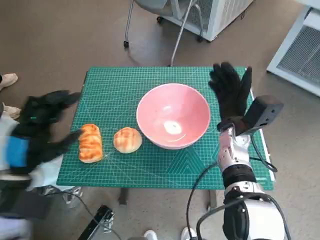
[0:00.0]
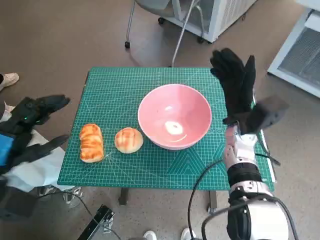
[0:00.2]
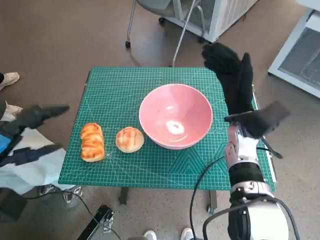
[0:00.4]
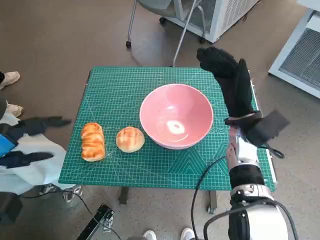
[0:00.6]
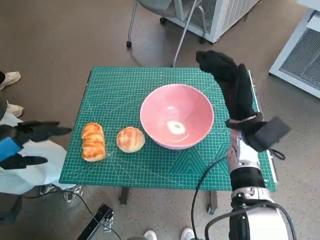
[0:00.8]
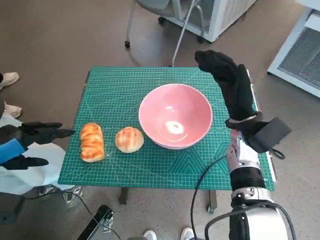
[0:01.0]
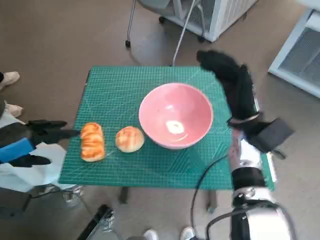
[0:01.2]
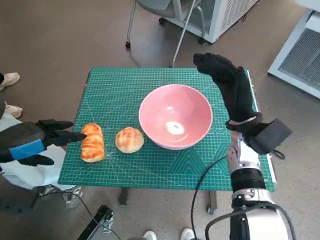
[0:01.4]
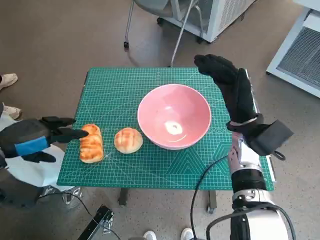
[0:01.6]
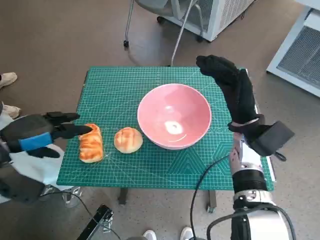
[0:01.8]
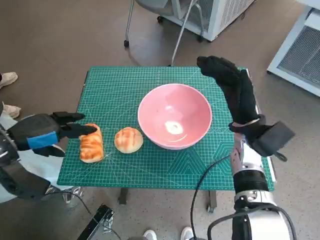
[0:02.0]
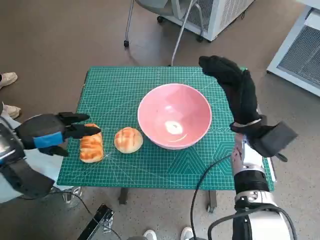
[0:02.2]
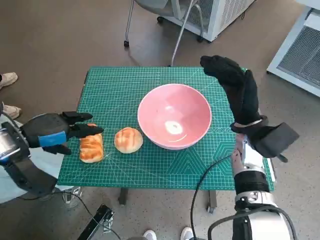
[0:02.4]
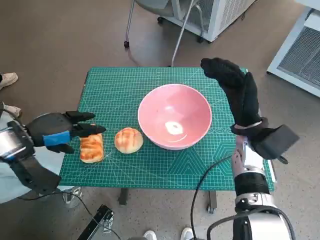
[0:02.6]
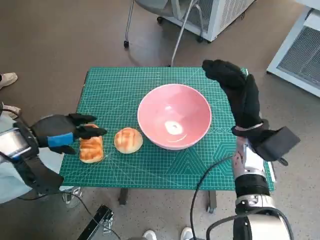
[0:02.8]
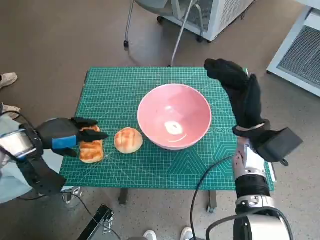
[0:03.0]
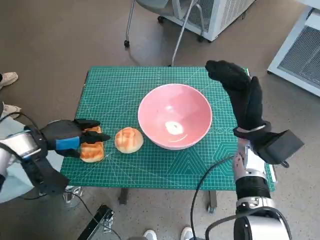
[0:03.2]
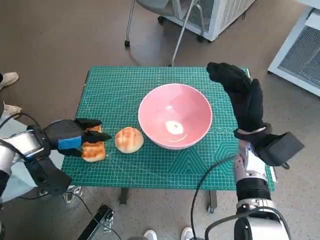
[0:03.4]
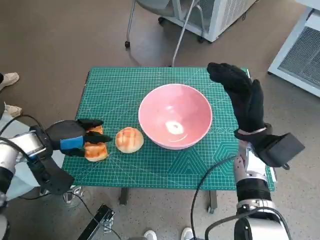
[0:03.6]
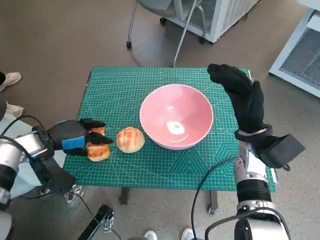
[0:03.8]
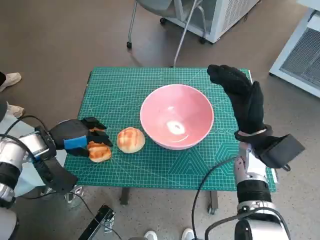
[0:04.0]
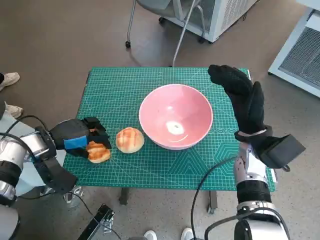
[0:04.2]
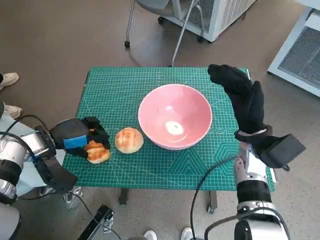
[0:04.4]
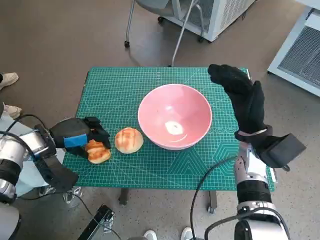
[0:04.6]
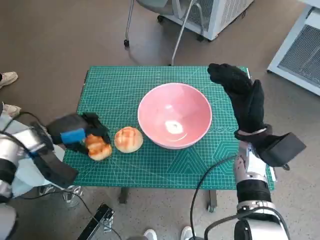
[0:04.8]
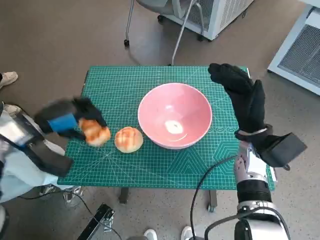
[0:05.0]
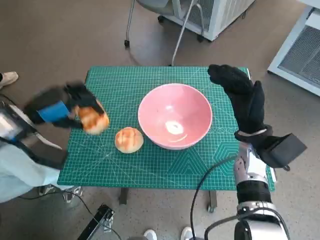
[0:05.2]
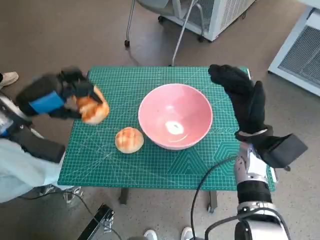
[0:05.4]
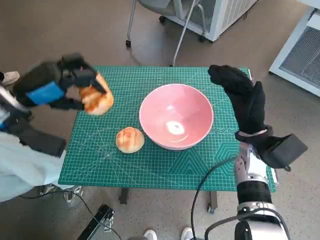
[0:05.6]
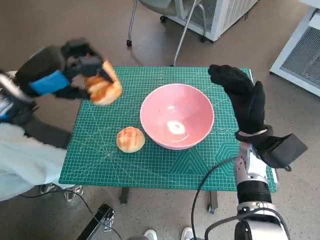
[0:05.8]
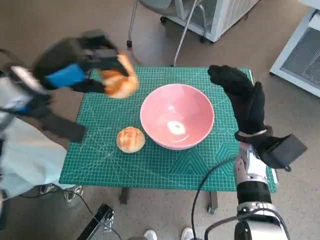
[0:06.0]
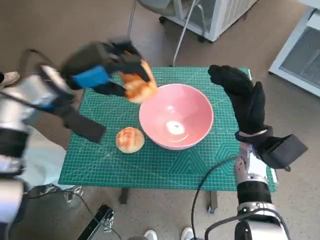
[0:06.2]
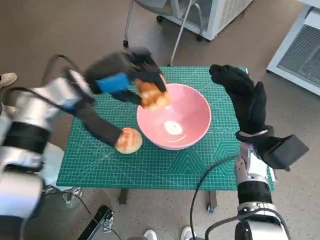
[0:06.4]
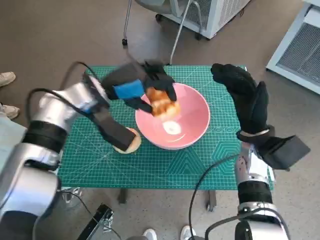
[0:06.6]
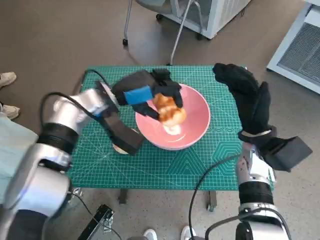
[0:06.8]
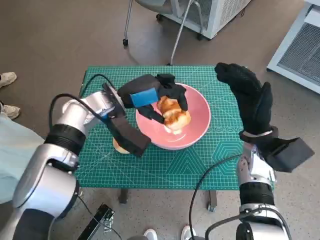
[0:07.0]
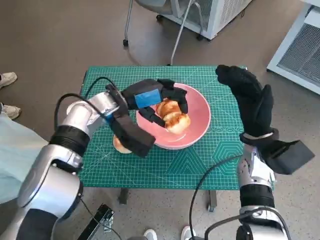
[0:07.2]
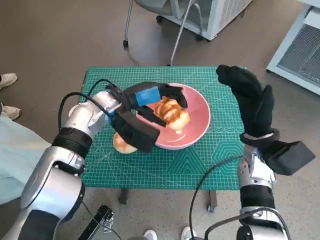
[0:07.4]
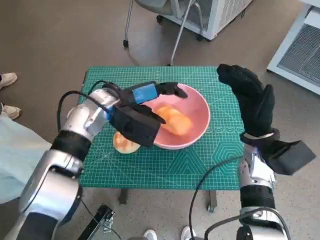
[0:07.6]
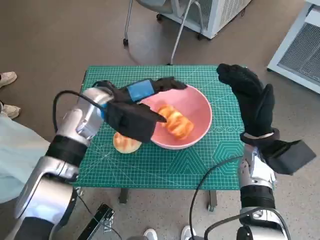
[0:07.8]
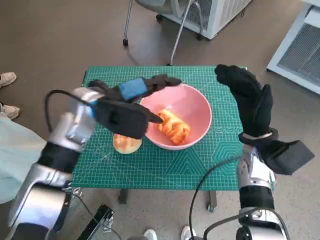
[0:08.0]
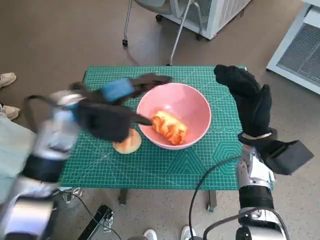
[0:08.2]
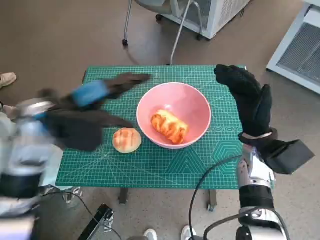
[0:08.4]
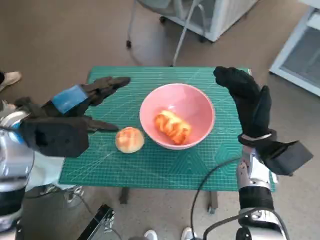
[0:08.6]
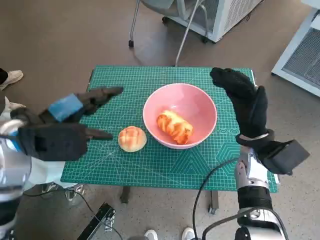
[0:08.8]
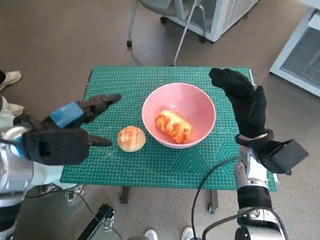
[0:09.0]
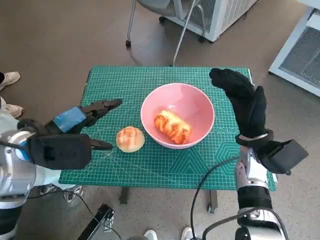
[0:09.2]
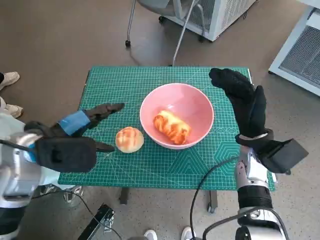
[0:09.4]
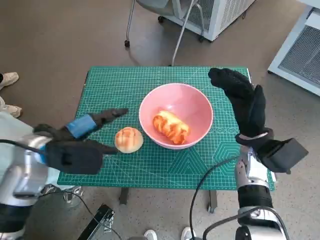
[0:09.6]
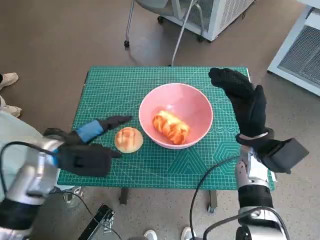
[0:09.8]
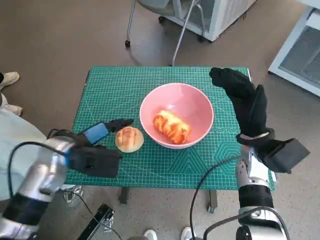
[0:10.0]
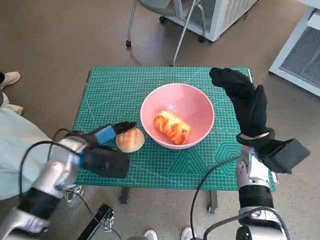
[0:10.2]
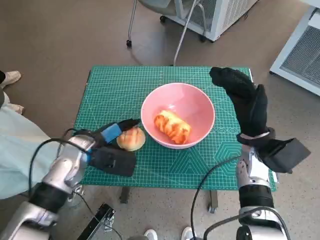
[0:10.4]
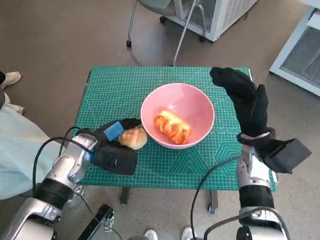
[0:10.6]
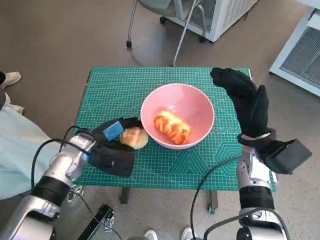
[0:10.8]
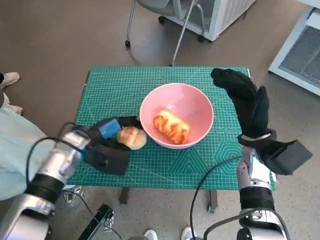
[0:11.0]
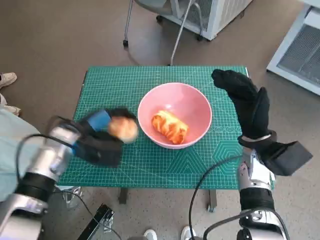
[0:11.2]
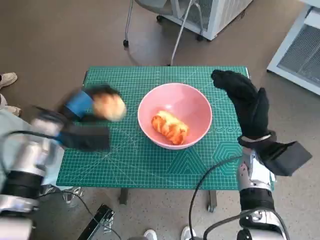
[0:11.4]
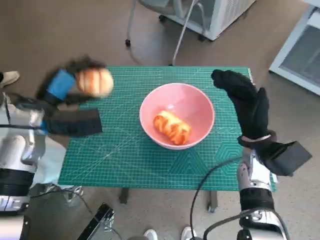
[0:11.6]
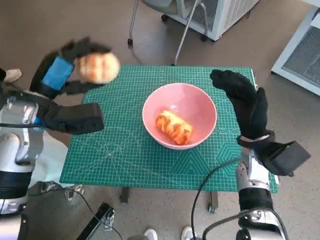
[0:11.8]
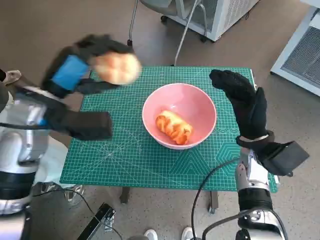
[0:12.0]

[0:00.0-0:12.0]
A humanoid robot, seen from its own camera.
Task of the whole recording: Push the bowl to the center of the table and put the bread into the bowl.
Step, 0.2 to 3.6 s: Grasp the long bread with left hand.
Step, 3.8 to 8.0 s: Place the long bread in pink bowl with left hand.
Step, 8.2 to 11.0 s: Grasp the round bread with left hand.
0.0 to 1.6 s: The left hand shifts some 5 cm to the left.
1.6 to 3.0 s: The left hand is displaced forward by approximately 5 cm.
3.0 to 4.4 s: The hands make only small movements.
4.4 to 6.0 s: The left hand is displaced upward by about 15 cm.
6.0 to 7.6 s: The left hand goes approximately 15 cm to the right and downward.
7.6 to 9.0 s: The left hand travels to the left and backward by roughly 15 cm.
9.0 to 10.4 s: The left hand moves downward, some 10 cm.
10.4 to 12.0 s: The left hand goes about 15 cm upward.

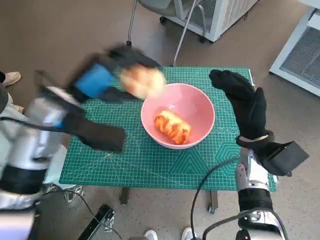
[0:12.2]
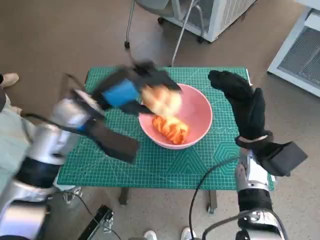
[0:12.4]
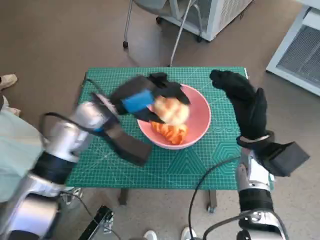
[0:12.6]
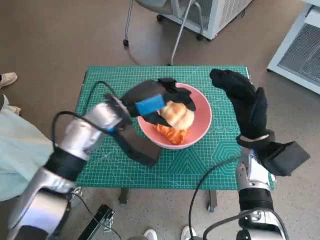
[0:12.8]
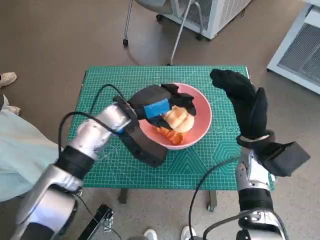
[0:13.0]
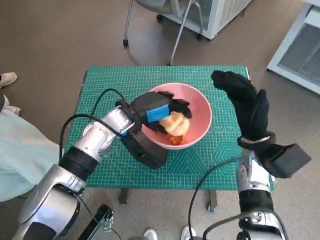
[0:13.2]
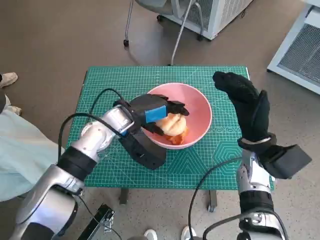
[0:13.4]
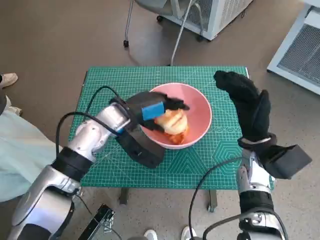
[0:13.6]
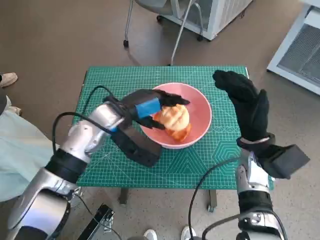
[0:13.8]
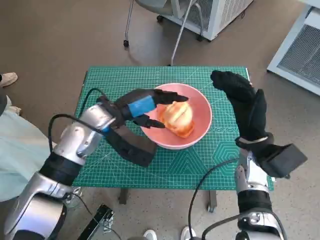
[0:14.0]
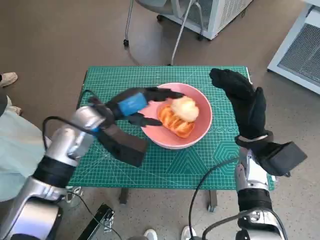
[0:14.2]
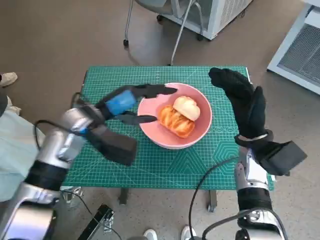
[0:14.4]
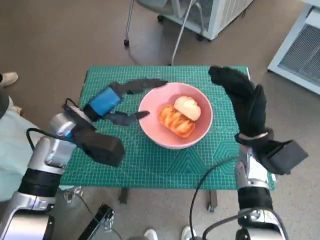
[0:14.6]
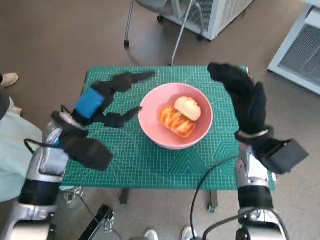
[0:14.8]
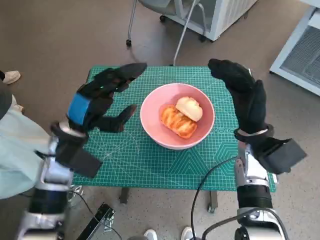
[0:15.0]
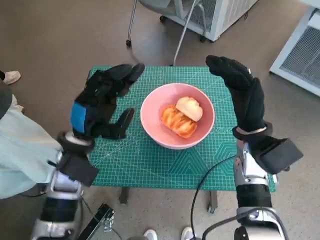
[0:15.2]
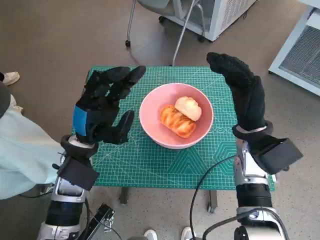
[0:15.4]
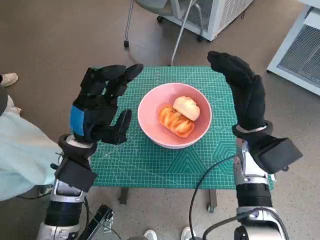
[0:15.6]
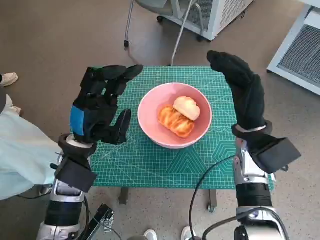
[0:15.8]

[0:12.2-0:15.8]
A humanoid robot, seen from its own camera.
Task of the whole recording: Push the bowl to the center of the table and put the bread into the bowl.
Step, 12.2 to 14.0 s: Place the round bread in pink bowl with left hand.
12.2 to 14.0 s: The left hand shifts roughly 10 cm downward and to the right.
14.0 to 15.8 s: The left hand moves backward, roughly 5 cm.

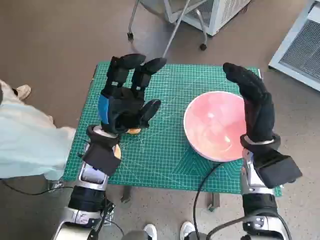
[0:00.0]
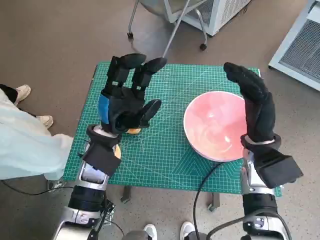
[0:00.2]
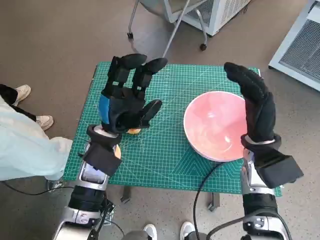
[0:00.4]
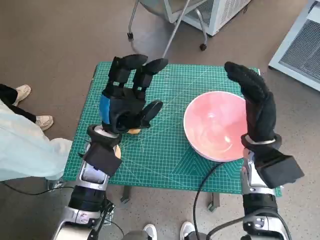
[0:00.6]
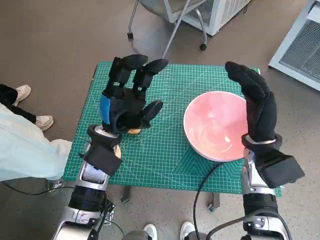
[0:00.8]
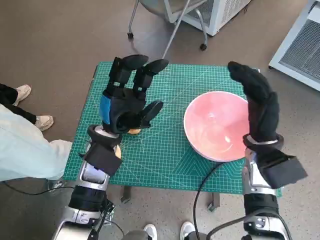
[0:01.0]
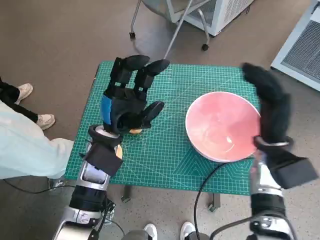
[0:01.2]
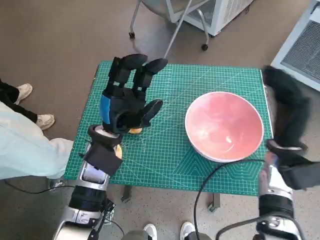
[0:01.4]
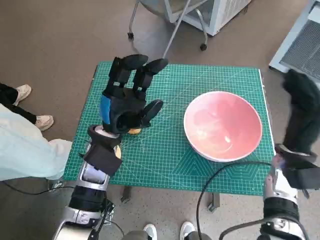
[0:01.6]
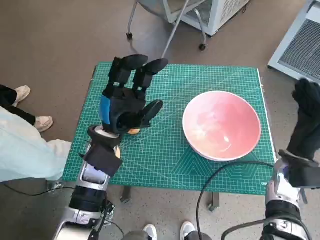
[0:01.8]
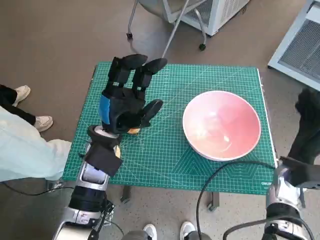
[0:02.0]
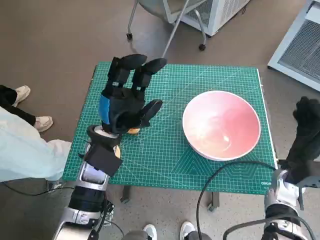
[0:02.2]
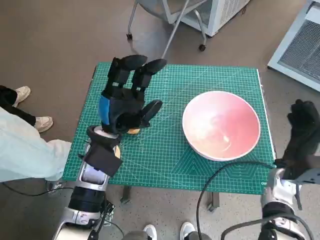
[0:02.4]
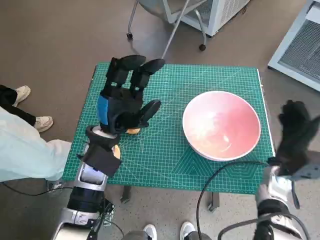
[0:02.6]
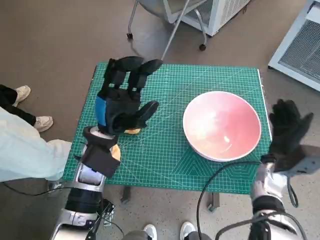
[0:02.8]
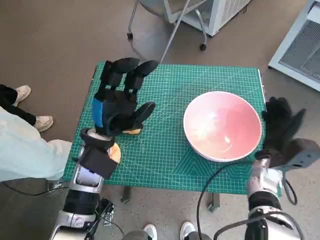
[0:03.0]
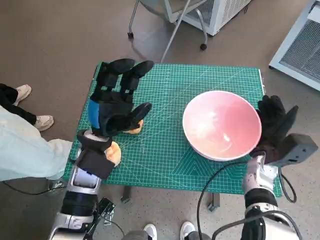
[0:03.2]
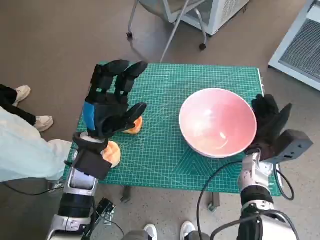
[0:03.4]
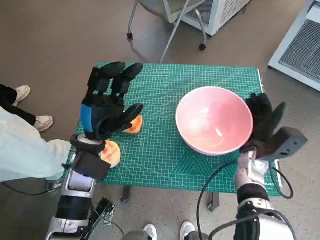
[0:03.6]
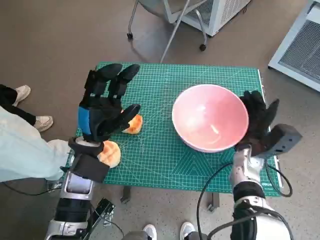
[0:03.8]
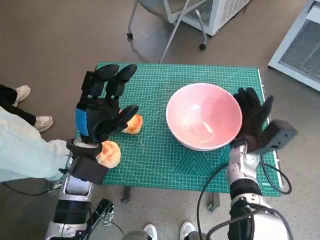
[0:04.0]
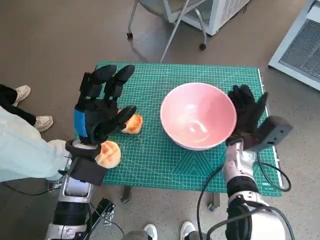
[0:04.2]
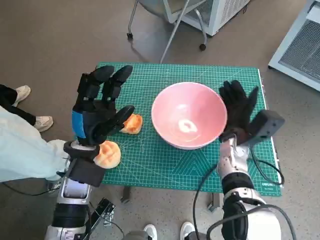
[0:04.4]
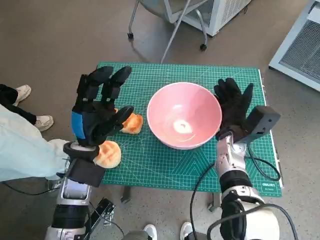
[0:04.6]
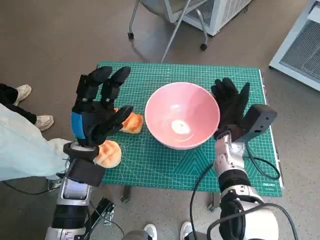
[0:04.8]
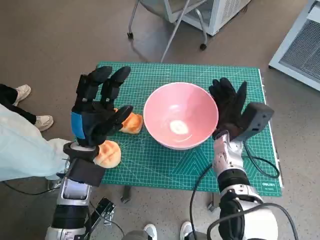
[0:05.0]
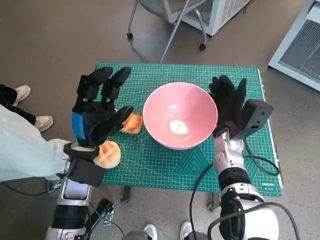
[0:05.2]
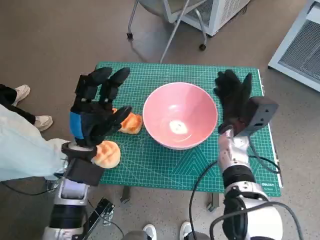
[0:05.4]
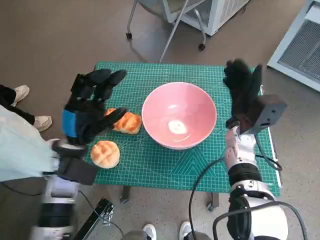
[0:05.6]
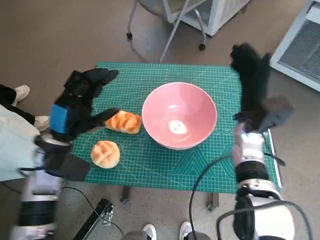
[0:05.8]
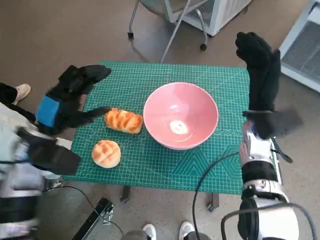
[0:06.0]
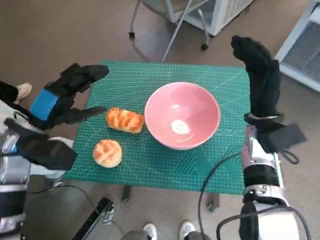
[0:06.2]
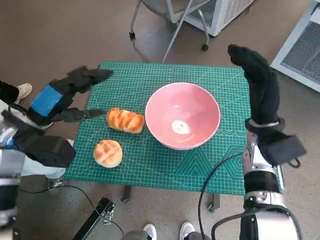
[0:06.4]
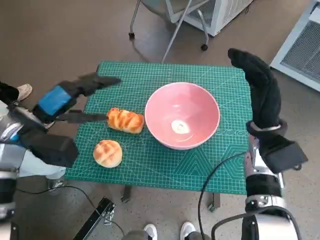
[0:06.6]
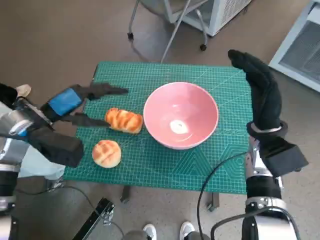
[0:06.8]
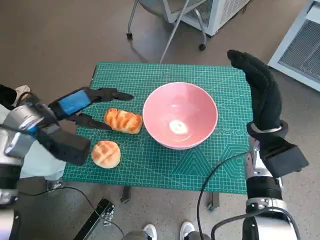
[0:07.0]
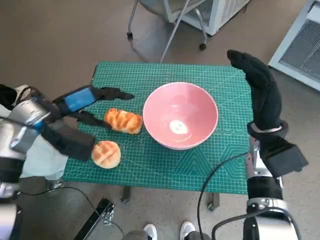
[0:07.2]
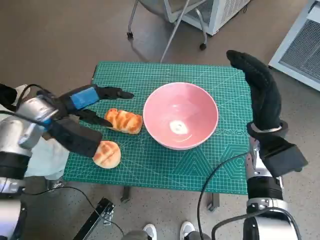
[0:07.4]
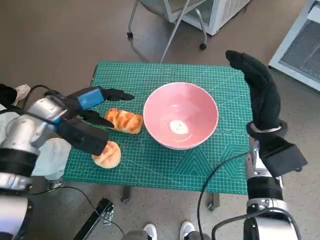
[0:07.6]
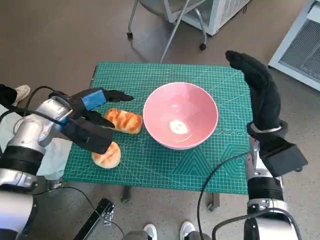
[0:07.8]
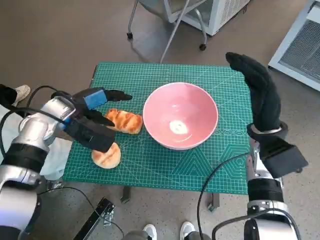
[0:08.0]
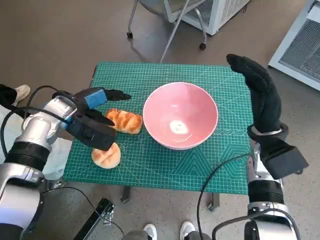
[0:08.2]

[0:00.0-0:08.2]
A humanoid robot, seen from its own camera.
Task of the whole recording: Push the bowl to the center of the table and put the bread into the bowl.
Step, 0.0 to 5.4 s: Move the pink bowl to the center of table with right hand.
1.6 to 3.2 s: The right hand travels downward by approximately 5 cm.
3.2 to 5.0 s: The right hand travels to the left by about 10 cm.
5.0 to 6.6 s: The left hand is displaced to the left and upward by about 10 cm. The right hand shifts some 10 cm upward and to the right.
6.6 to 8.2 s: The left hand goes about 5 cm forward.
